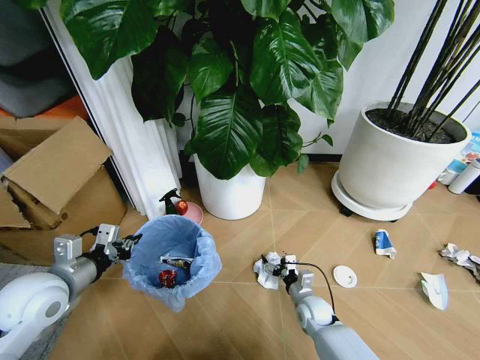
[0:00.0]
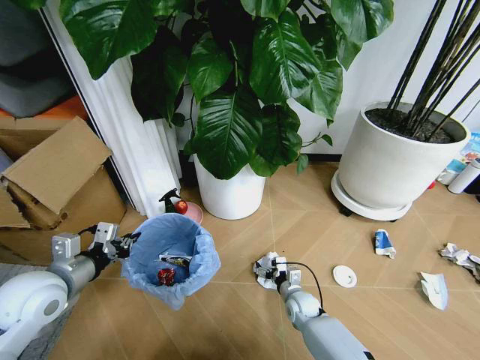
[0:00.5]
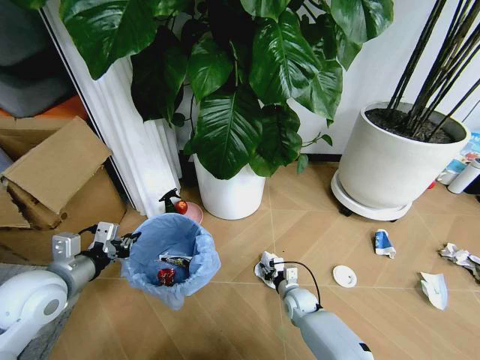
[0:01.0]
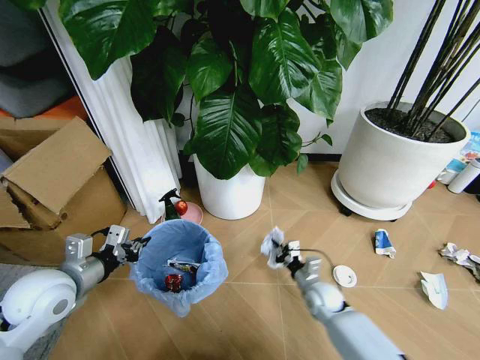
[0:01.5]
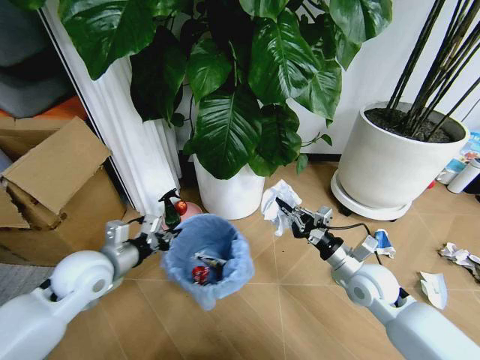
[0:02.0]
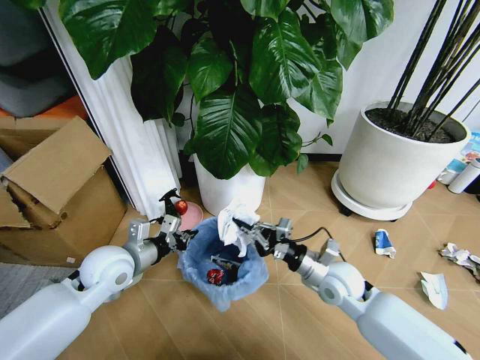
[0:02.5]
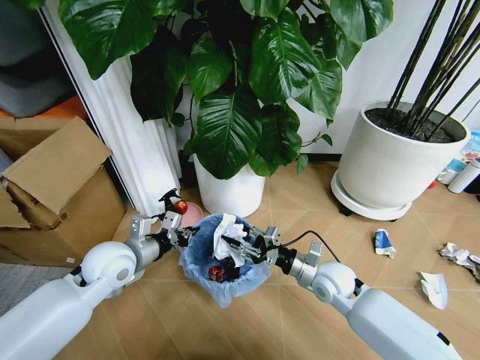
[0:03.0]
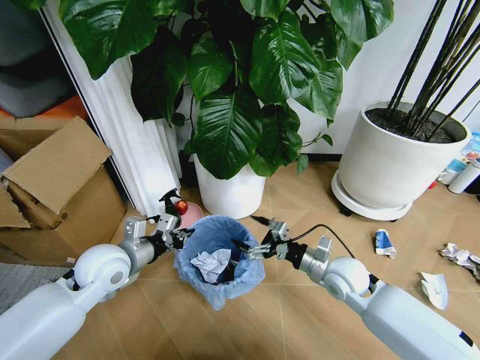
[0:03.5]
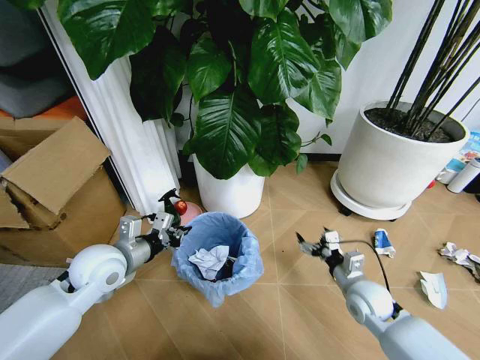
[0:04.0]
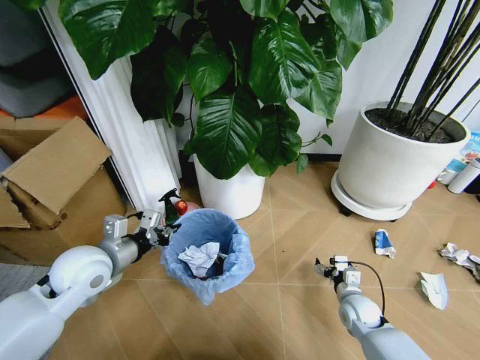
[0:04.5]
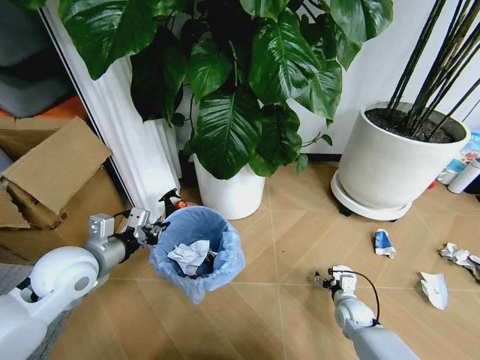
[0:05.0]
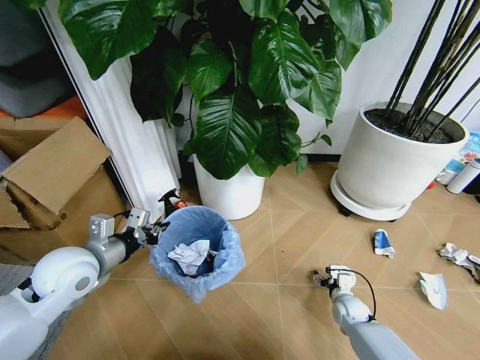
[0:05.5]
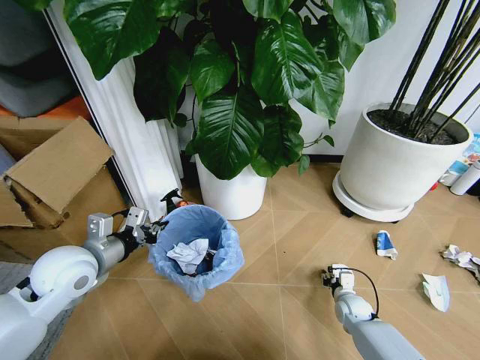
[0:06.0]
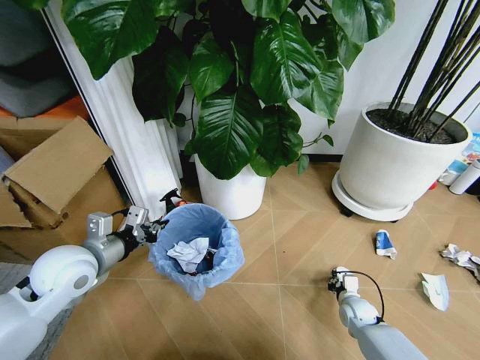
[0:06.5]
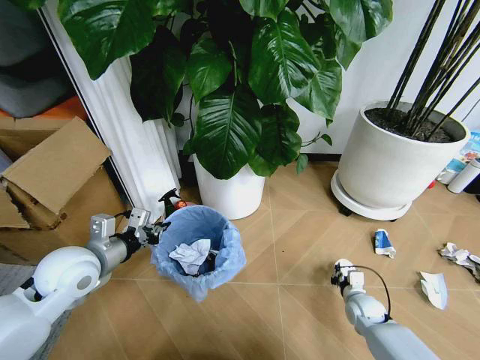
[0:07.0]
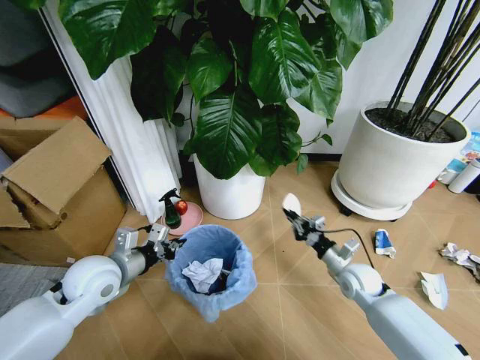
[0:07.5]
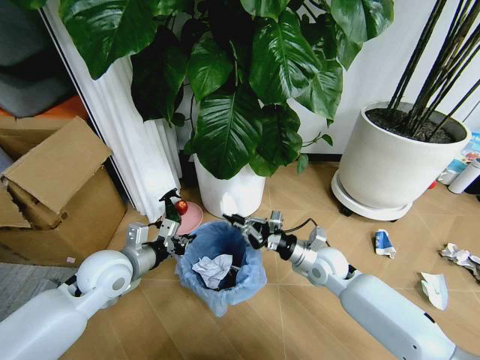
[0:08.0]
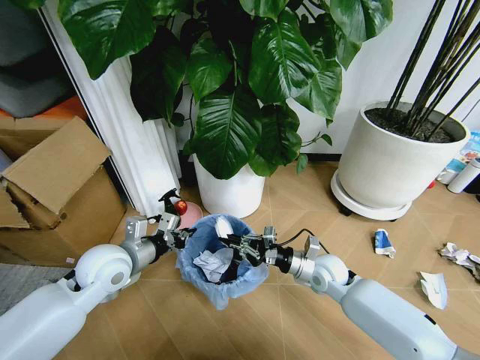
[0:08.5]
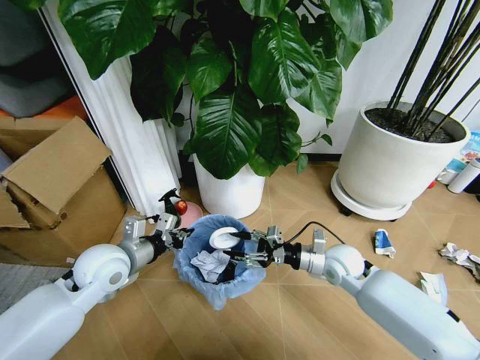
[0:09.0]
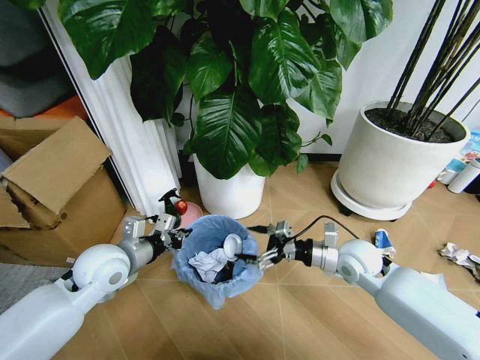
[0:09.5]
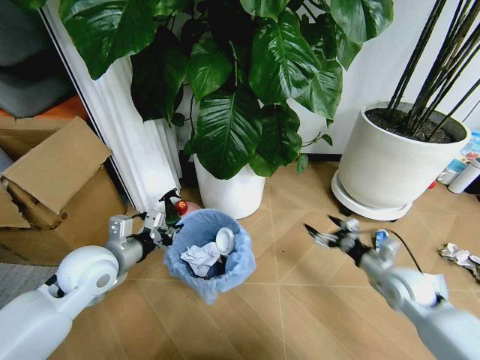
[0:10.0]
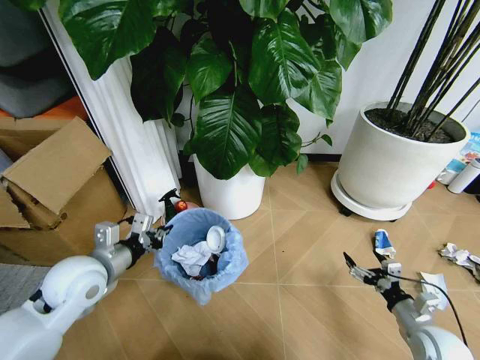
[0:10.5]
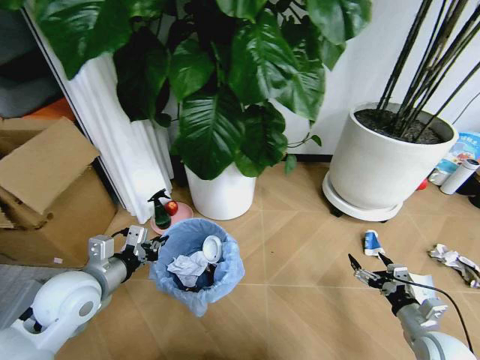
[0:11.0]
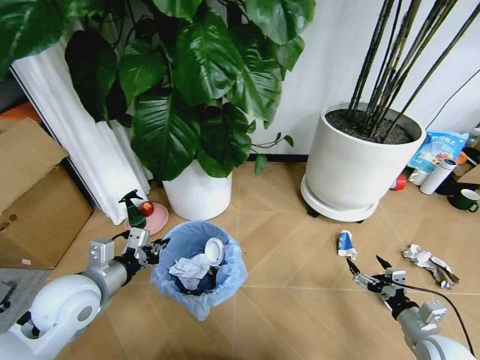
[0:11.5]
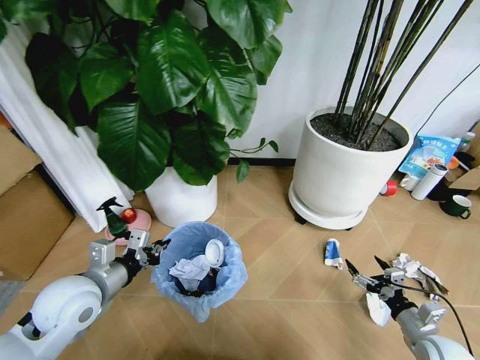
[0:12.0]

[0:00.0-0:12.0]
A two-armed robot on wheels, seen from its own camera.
Task of the whole recording: Pick up the trash bin and place the garbage on the floor into it.
0:00.0 to 0:02.0: The right gripper heads upward, covering roughly 20 cm, and closes, while the left gripper is displaced to the right by about 5 cm.
0:02.0 to 0:04.0: The right gripper heads downward, covering some 5 cm, moves about 5 cm to the left and comes back, and opens.
0:04.0 to 0:06.0: The left gripper changes place by roughly 5 cm, while the right gripper heads downward, covering some 15 cm, and closes up.
0:06.0 to 0:08.0: The right gripper shifts about 25 cm upward and to the left, and closes. The left gripper ends up some 5 cm from where it was.
0:08.0 to 0:10.0: The right gripper goes about 15 cm to the right, and opens.
0:10.0 to 0:12.0: The left gripper moves backward, roughly 5 cm, while the right gripper shifts roughly 15 cm backward, downward and to the right.

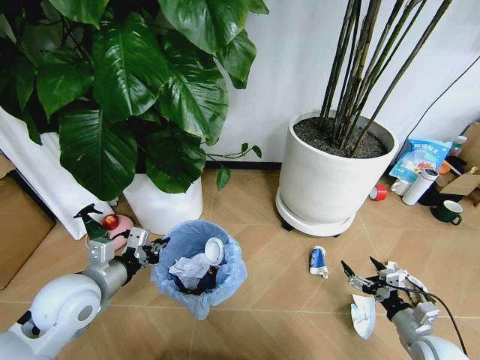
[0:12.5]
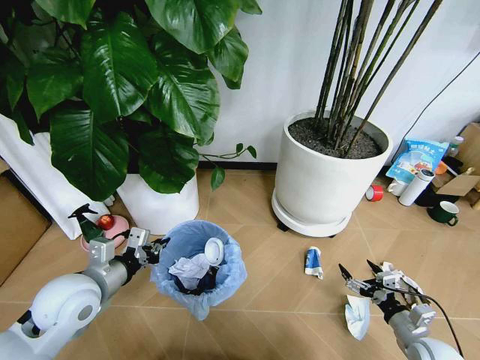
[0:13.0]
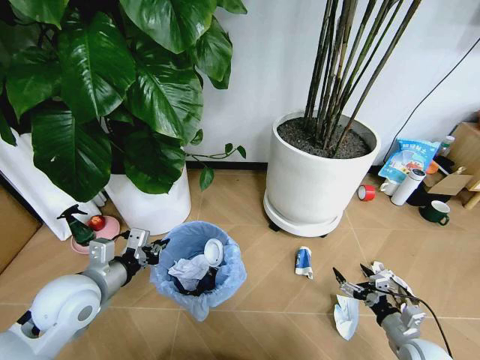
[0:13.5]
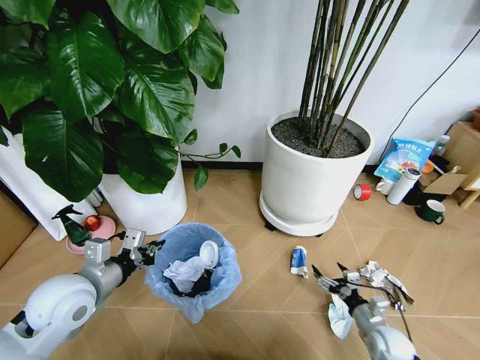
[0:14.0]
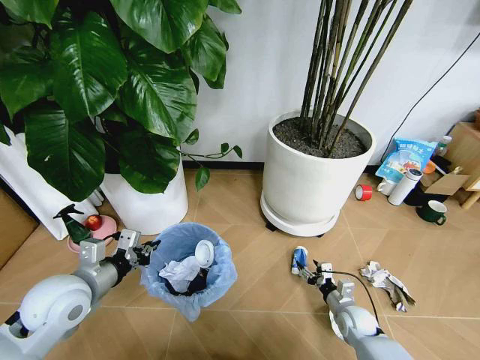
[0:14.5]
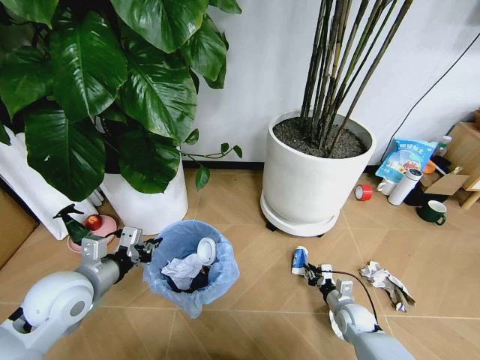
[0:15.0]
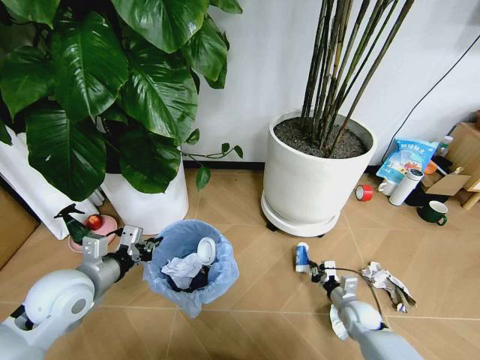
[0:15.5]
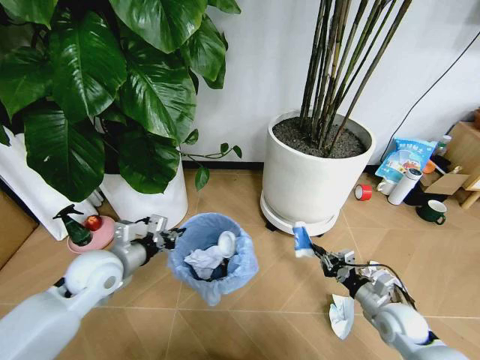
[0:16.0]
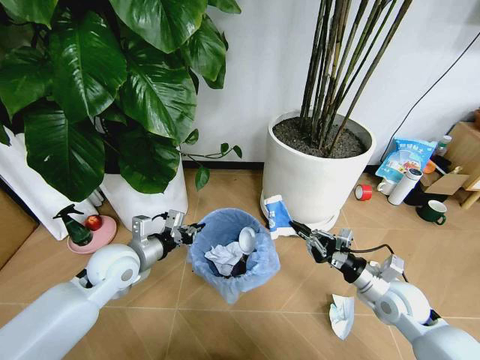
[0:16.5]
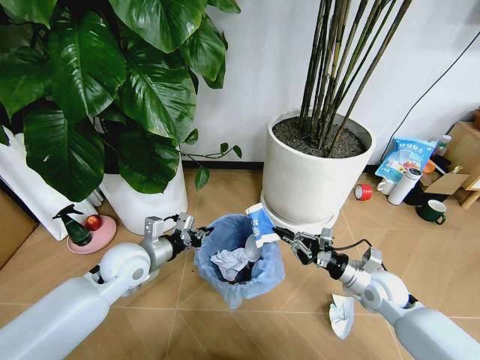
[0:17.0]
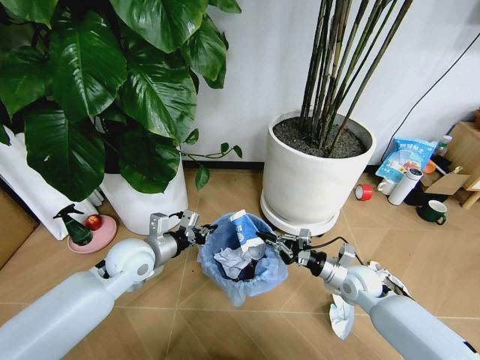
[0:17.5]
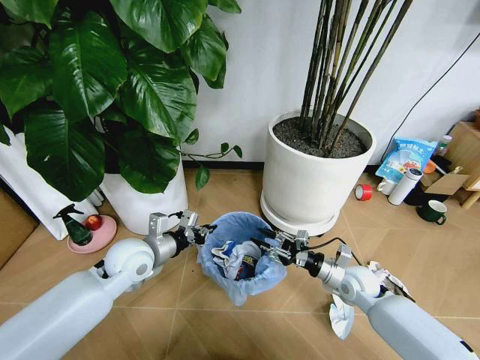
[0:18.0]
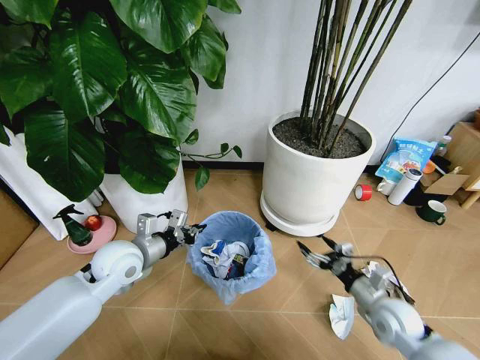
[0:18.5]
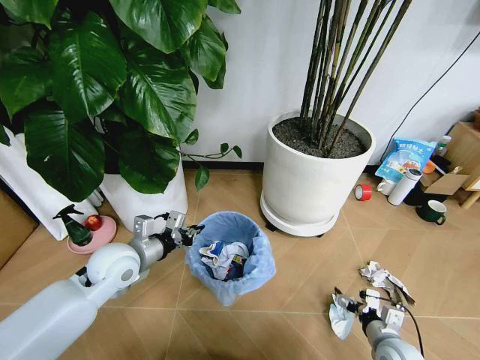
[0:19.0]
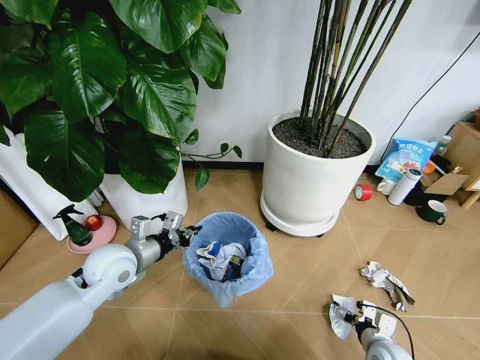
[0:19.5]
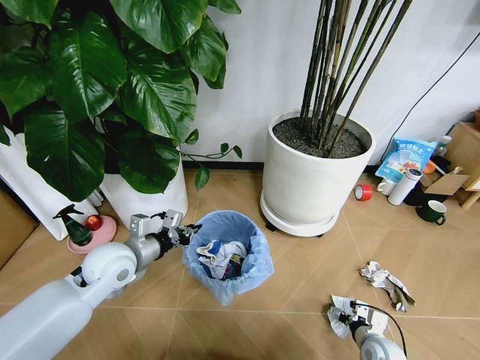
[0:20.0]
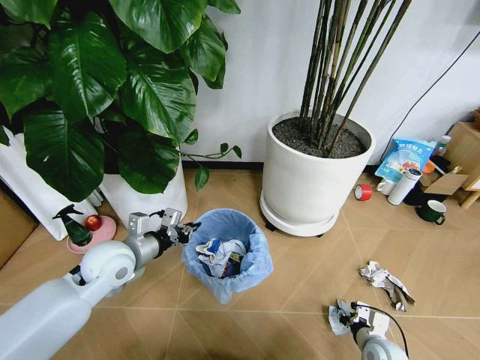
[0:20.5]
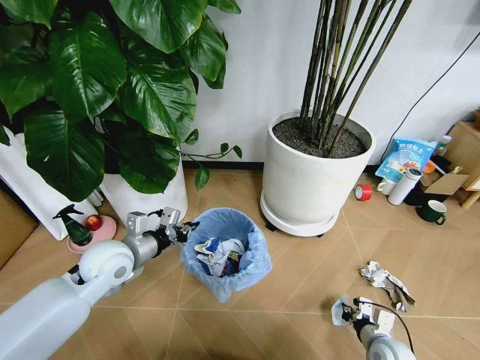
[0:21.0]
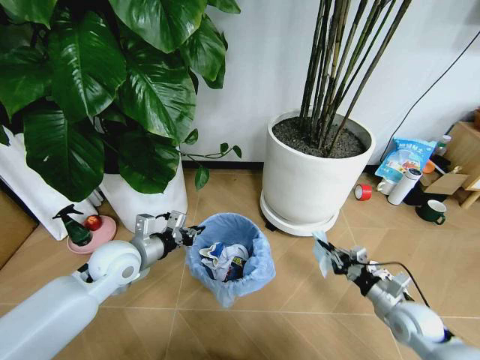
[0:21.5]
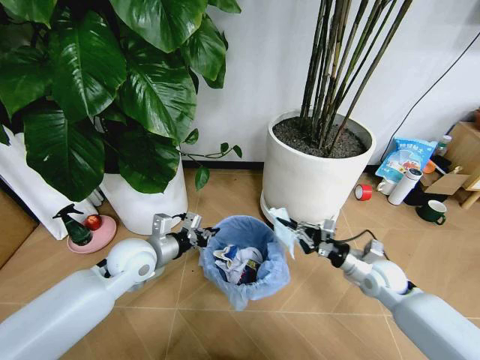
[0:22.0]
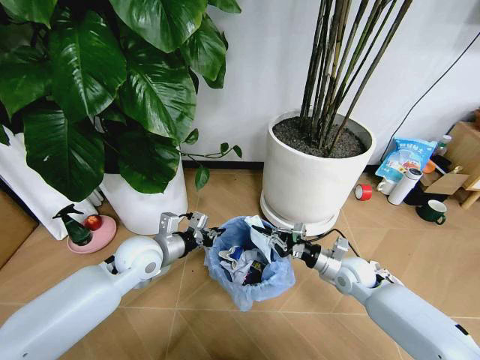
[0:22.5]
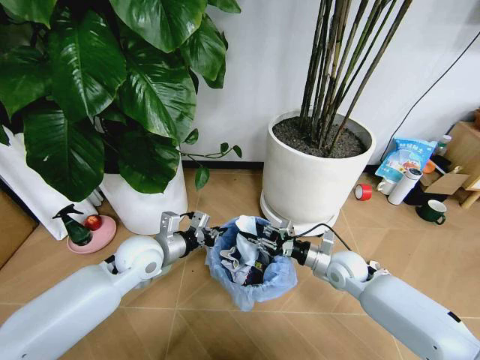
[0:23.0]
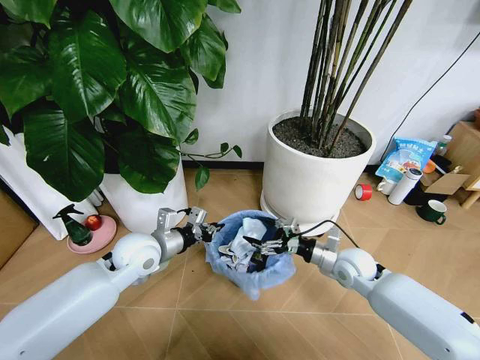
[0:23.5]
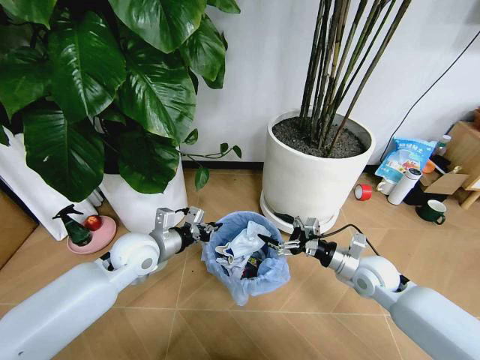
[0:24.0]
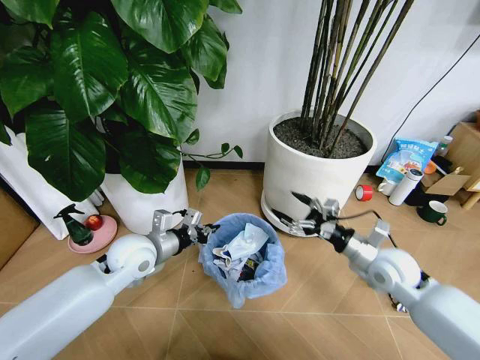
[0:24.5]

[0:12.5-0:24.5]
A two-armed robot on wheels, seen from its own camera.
Task of the whole recording: Pick up the trash bin and place the garbage on the floor into it.
0:12.5 to 0:14.5: The right gripper goes approximately 20 cm to the left, downward and forward.
0:14.5 to 0:16.5: The left gripper is displaced forward and to the right by roughly 10 cm, while the right gripper travels upward by roughly 20 cm, and closes.
0:16.5 to 0:18.5: The right gripper opens up.
0:18.5 to 0:20.5: The right gripper moves downward and backward, roughly 15 cm, and closes up.
0:20.5 to 0:22.5: The left gripper shifts by roughly 5 cm; the right gripper shifts approximately 20 cm forward and upward.
0:22.5 to 0:24.5: The right gripper moves upward, some 10 cm, and opens its fingers.

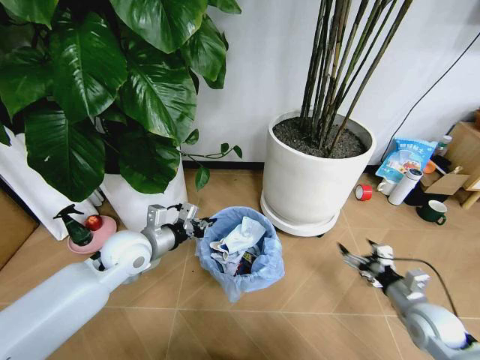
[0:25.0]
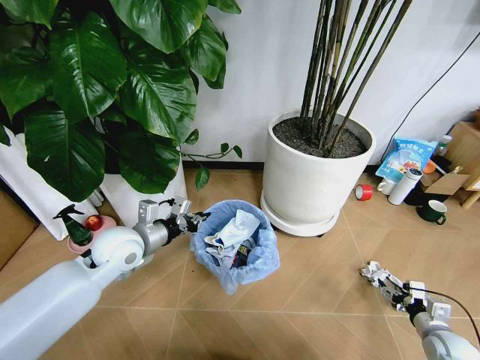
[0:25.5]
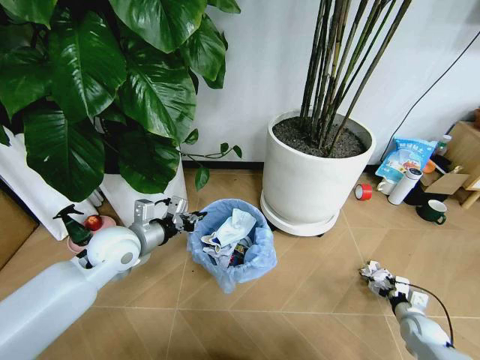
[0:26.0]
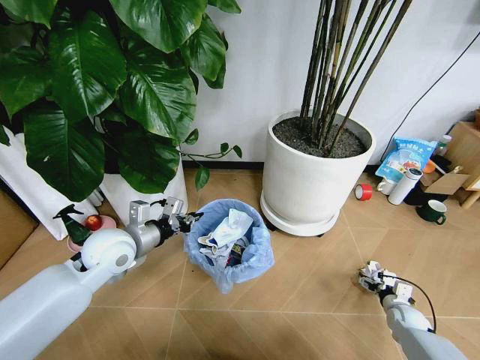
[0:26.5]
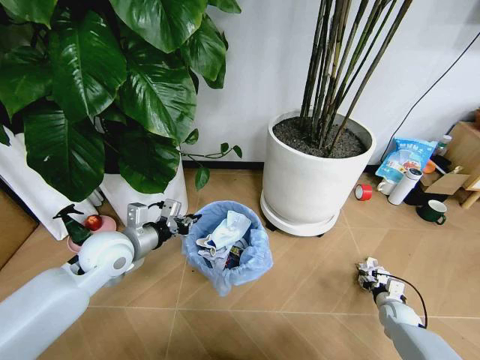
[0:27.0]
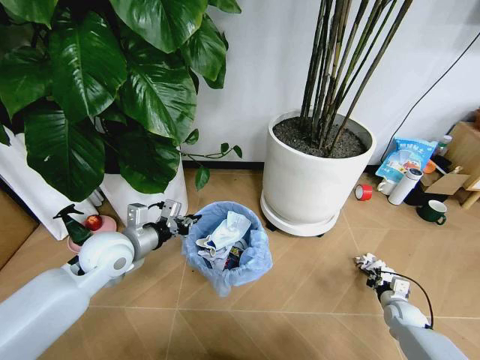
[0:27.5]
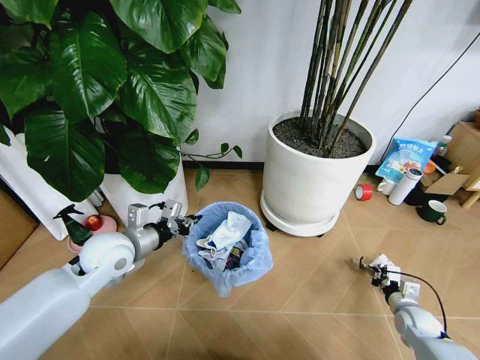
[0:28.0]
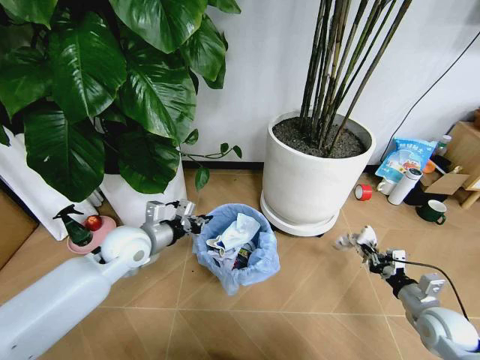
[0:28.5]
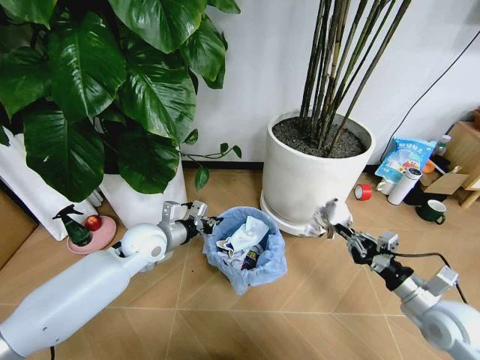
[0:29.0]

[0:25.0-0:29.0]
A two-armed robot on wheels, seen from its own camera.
Task of the whole recording: Pick up the trash bin and place the garbage on the floor into it.
0:25.0 to 0:27.0: The right gripper moves downward, approximately 20 cm, and closes up.
0:27.0 to 0:29.0: The left gripper ends up about 10 cm from where it was. The right gripper heads upward, covering approximately 25 cm, and closes up.
